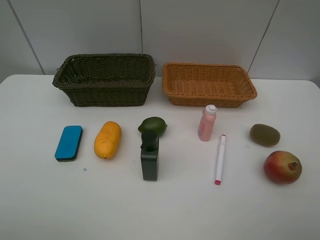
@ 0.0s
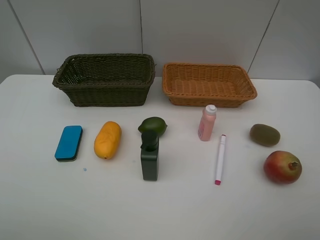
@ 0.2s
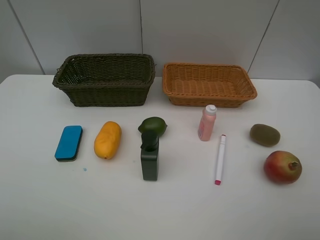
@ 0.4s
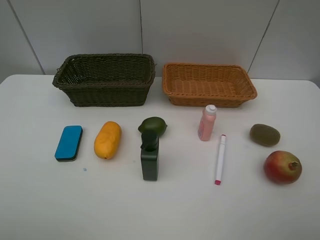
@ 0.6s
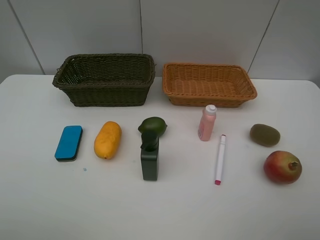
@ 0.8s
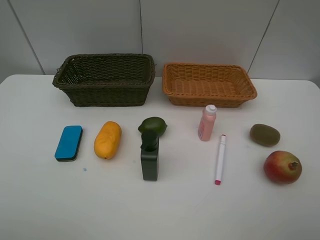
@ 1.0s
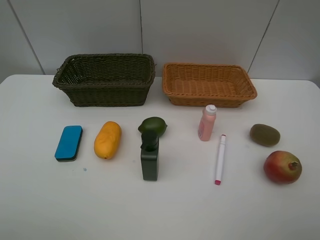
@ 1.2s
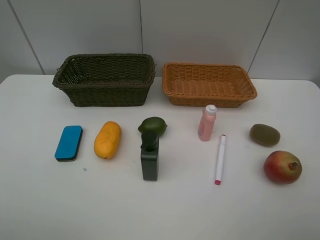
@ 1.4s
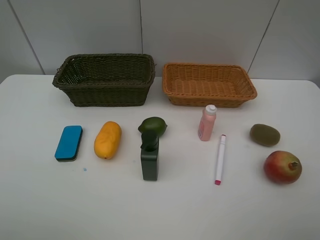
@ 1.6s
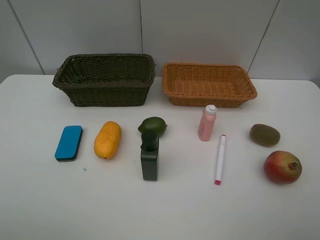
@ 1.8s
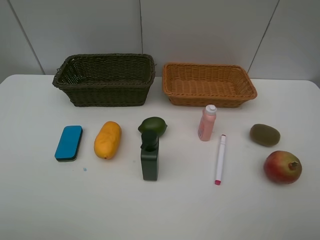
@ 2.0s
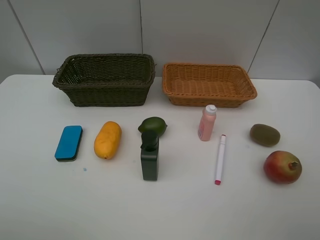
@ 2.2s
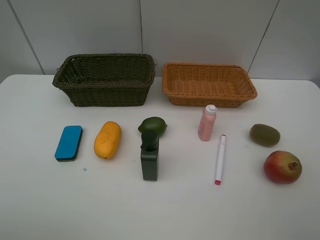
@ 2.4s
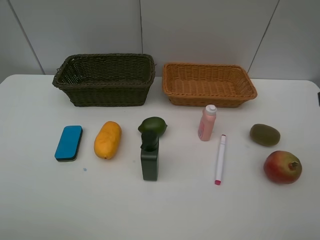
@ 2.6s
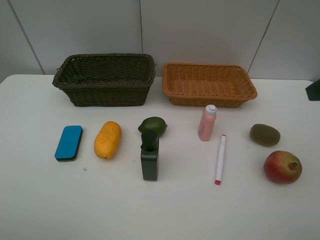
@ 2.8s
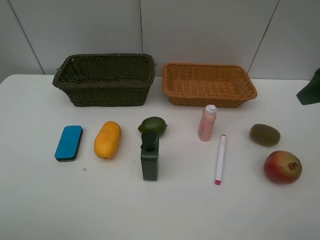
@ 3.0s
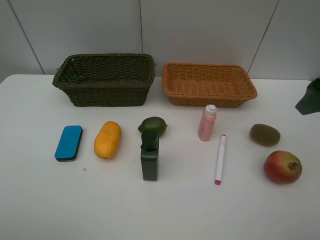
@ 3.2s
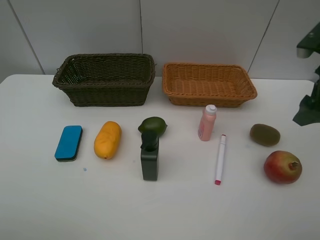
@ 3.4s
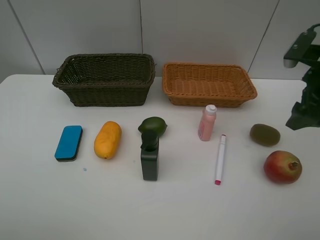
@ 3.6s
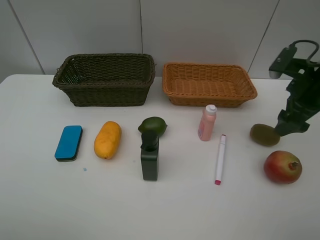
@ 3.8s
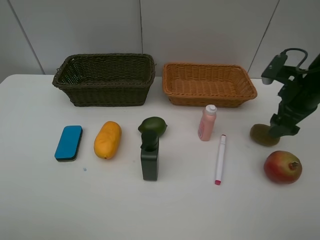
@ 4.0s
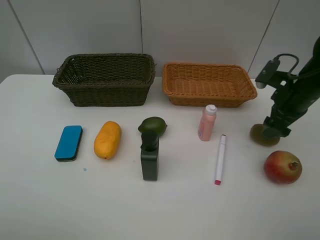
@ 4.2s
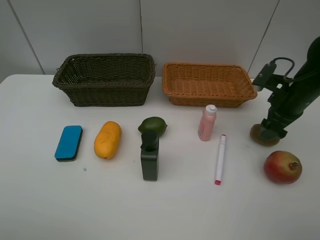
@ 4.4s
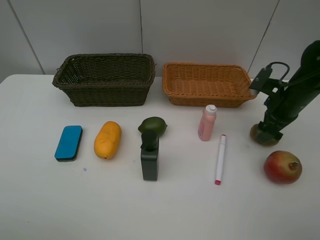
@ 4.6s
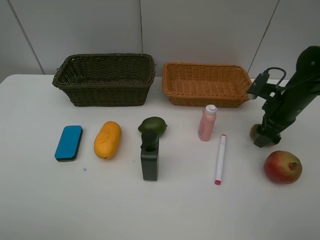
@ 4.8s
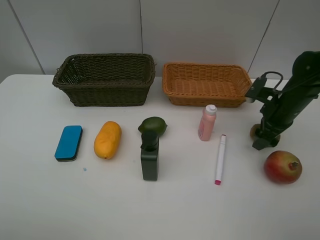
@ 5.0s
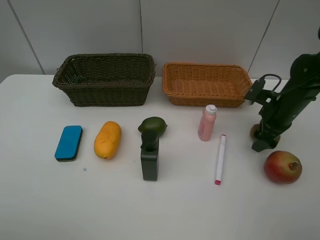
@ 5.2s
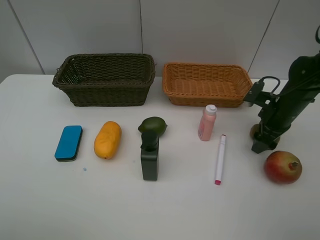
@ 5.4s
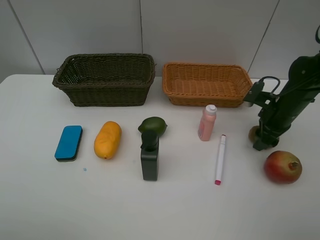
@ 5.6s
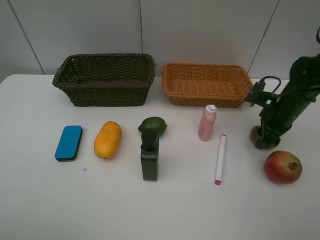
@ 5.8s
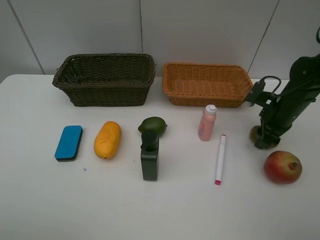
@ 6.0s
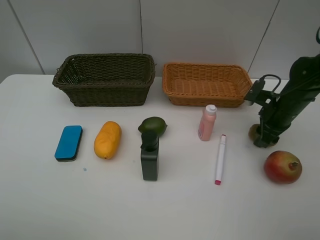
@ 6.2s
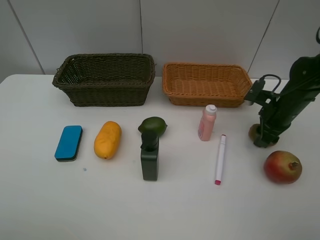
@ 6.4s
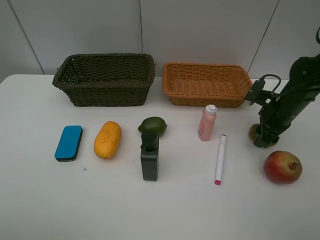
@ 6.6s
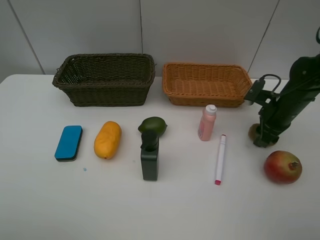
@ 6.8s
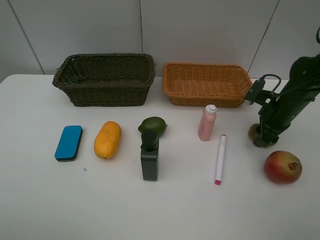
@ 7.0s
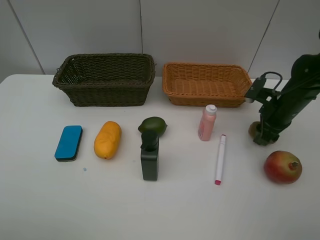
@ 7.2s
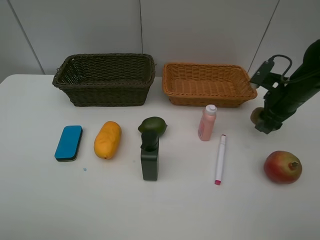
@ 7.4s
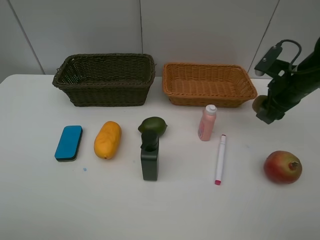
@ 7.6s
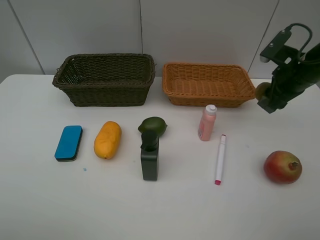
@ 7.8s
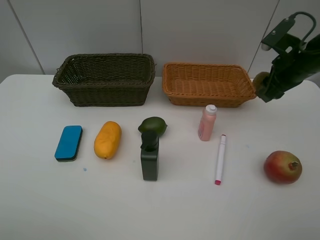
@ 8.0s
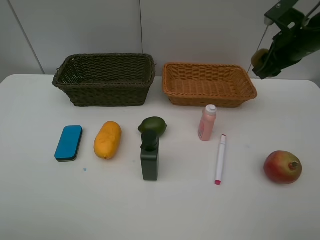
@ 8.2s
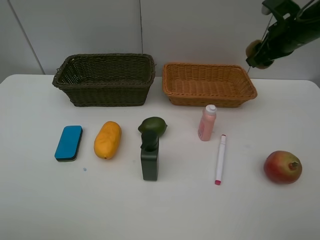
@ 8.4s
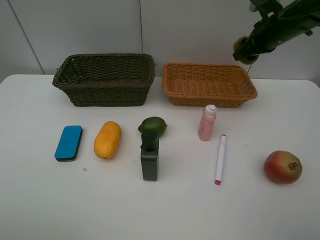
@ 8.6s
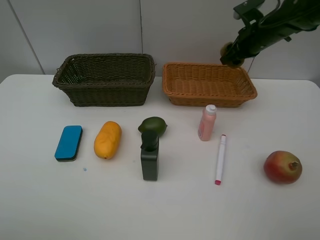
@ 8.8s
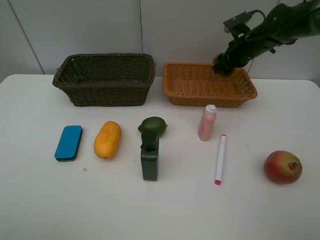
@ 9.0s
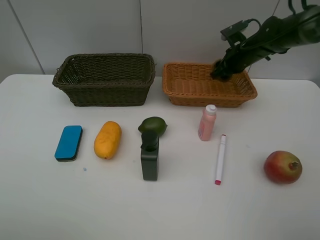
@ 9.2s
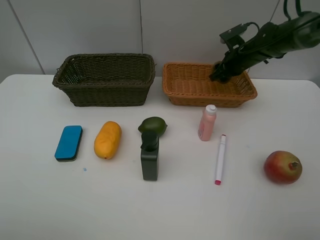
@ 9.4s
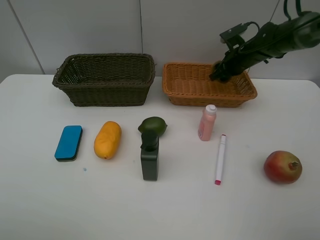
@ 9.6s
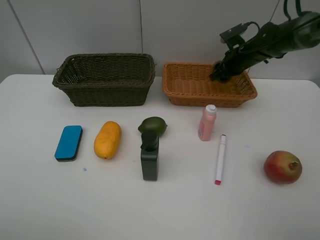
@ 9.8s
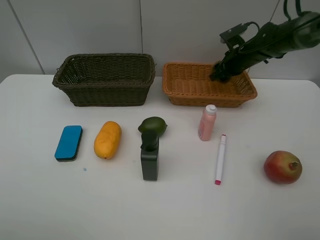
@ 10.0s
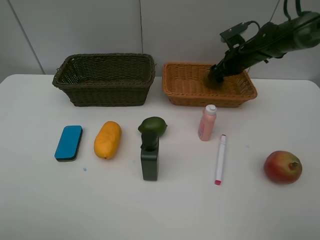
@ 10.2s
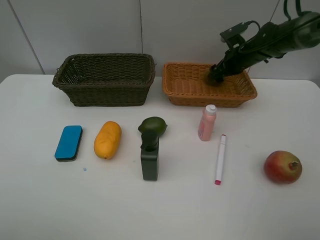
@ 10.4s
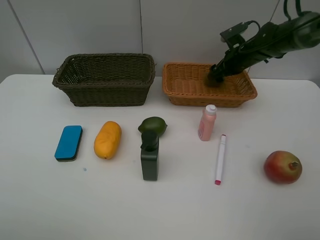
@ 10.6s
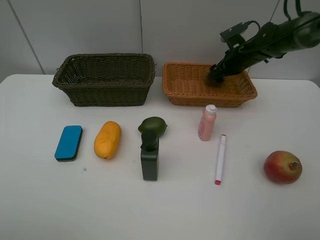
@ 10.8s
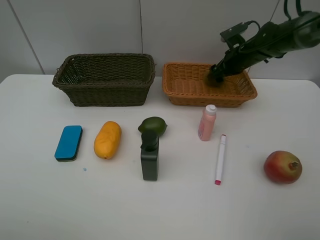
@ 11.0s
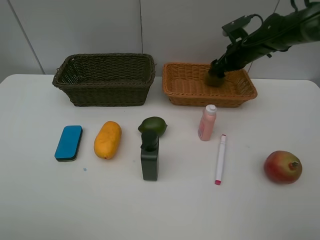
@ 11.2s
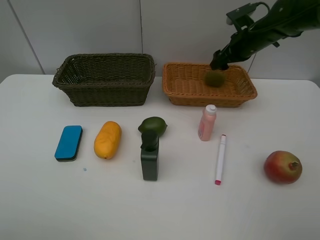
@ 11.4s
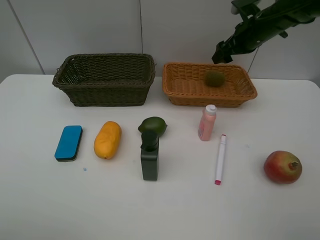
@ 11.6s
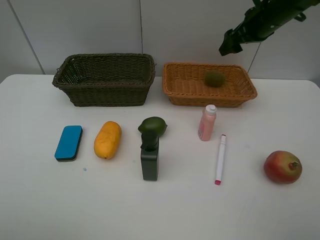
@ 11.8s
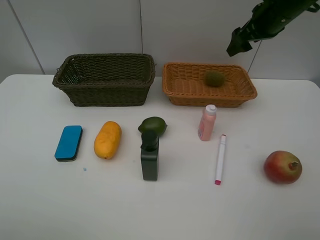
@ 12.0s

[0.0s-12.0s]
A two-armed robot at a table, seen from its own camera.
Task of the whole recording: Place multiple objects separately in different baskets.
Step, 0.0s to 7.2s: Pick up kiwi with right gripper.
Step, 7.4s to 11.2s: Place the kiwi in the light basket with right gripper.
0.0s to 1.6s: Neither gripper changes place.
1.6s to 3.0s: The right gripper is displaced forward by roughly 20 cm.
3.0s to 4.4s: The right gripper travels downward and forward by some 20 cm.
4.4s to 6.0s: The right gripper closes its fingers.
6.0s to 7.6s: The right gripper goes roughly 5 cm upward.
7.6s to 9.0s: The right gripper travels forward by about 15 cm.
9.0s to 10.4s: The right gripper opens.
10.4s to 12.0s: The right gripper goes some 15 cm upward and backward.

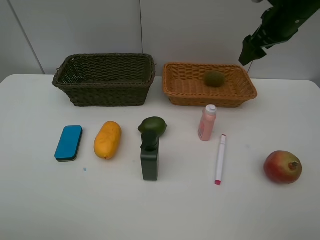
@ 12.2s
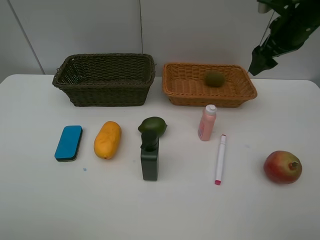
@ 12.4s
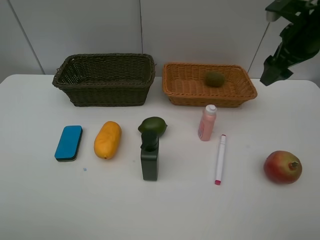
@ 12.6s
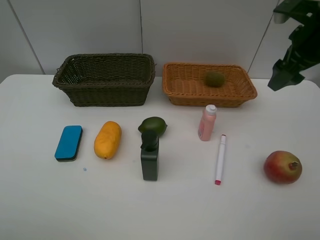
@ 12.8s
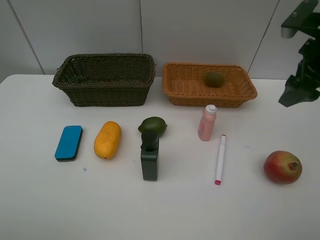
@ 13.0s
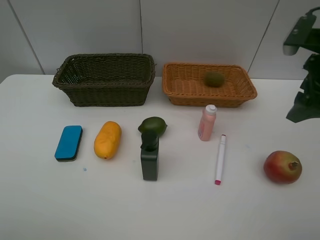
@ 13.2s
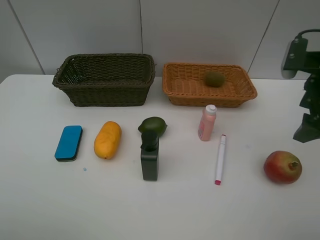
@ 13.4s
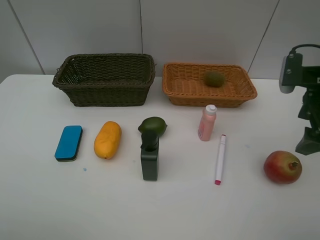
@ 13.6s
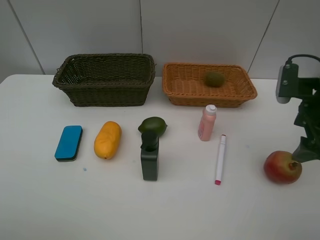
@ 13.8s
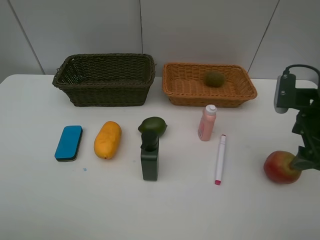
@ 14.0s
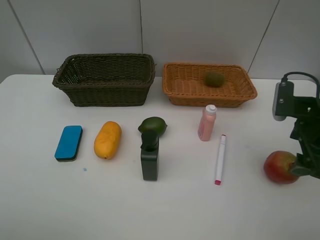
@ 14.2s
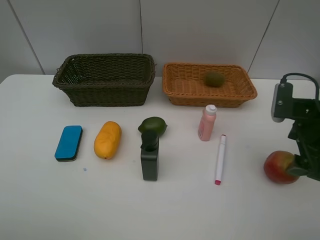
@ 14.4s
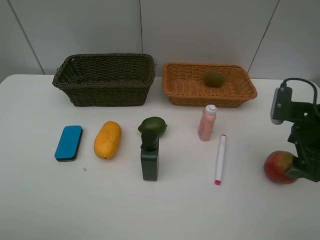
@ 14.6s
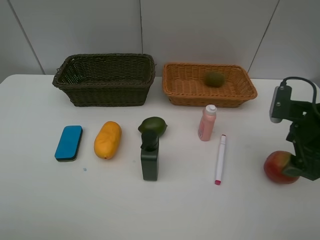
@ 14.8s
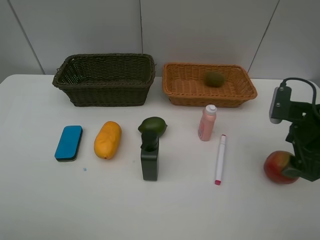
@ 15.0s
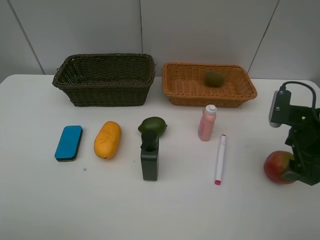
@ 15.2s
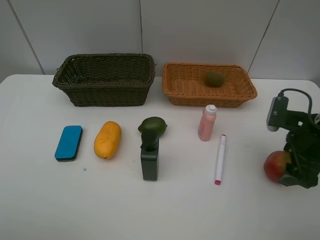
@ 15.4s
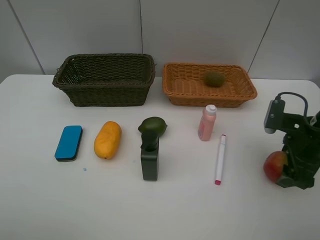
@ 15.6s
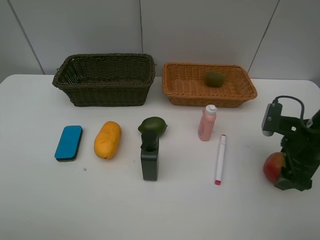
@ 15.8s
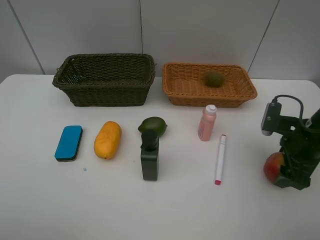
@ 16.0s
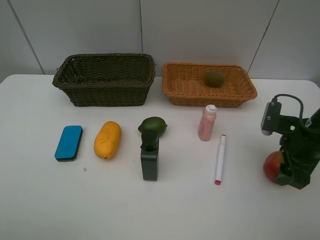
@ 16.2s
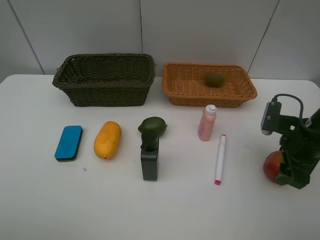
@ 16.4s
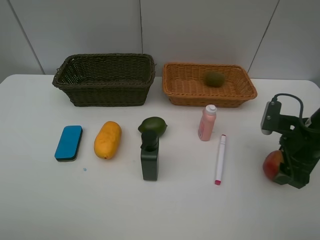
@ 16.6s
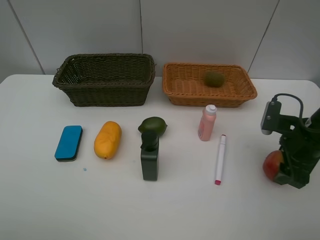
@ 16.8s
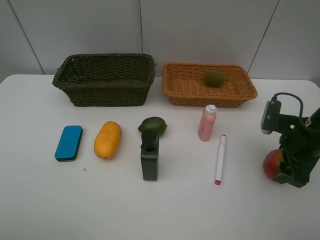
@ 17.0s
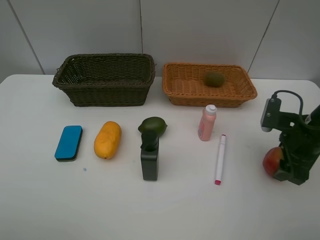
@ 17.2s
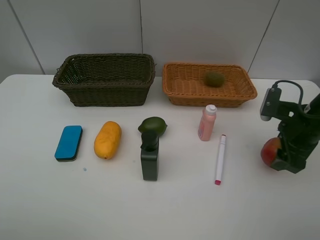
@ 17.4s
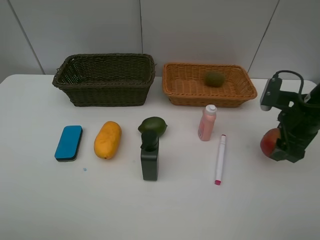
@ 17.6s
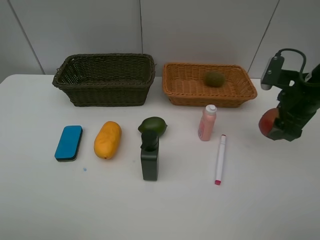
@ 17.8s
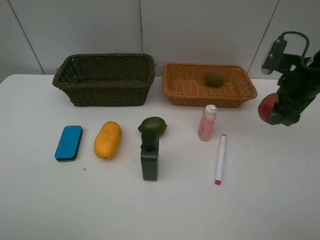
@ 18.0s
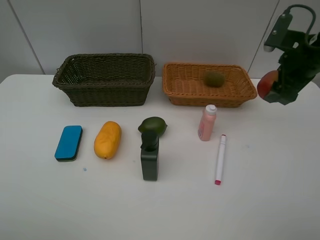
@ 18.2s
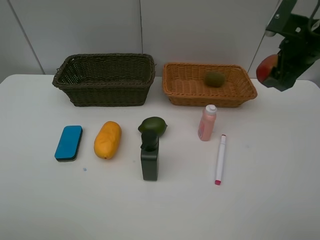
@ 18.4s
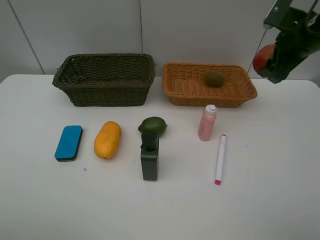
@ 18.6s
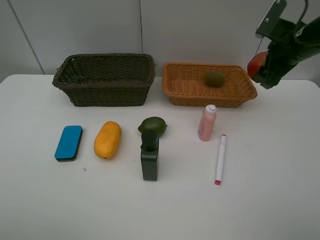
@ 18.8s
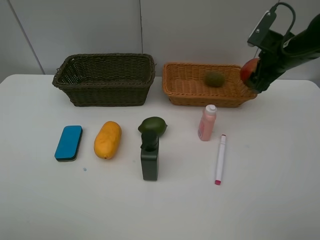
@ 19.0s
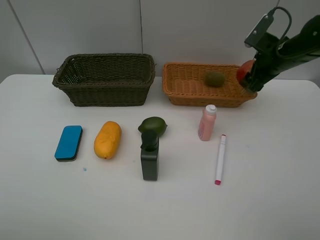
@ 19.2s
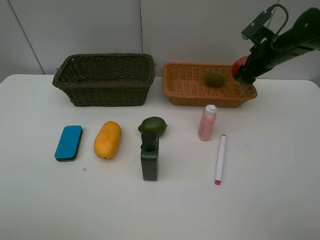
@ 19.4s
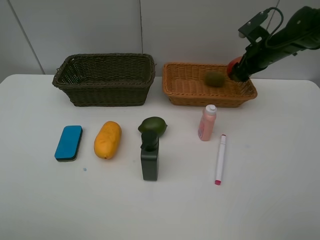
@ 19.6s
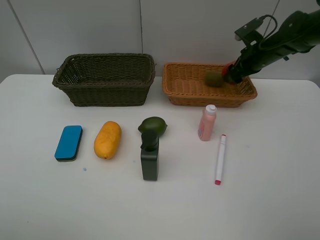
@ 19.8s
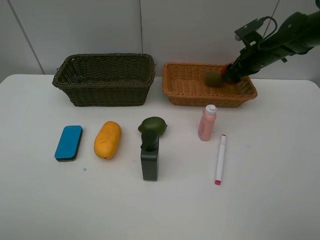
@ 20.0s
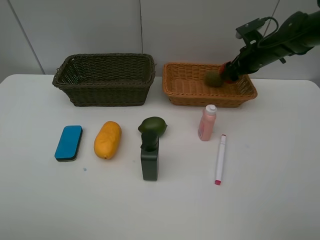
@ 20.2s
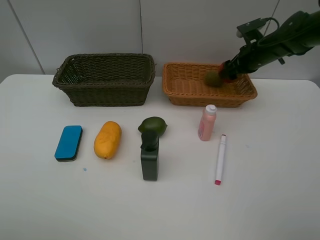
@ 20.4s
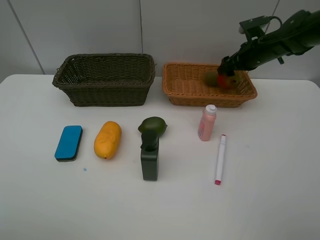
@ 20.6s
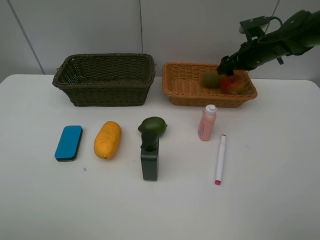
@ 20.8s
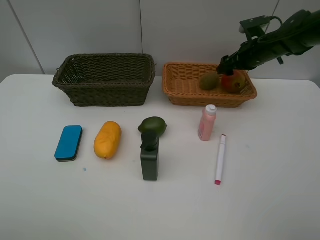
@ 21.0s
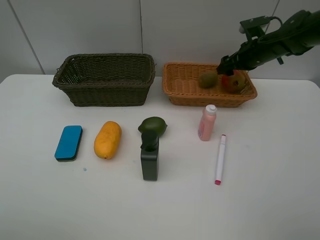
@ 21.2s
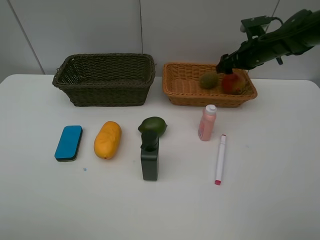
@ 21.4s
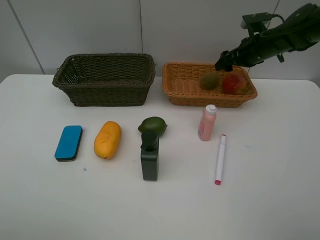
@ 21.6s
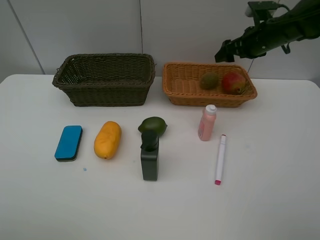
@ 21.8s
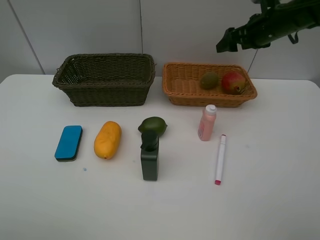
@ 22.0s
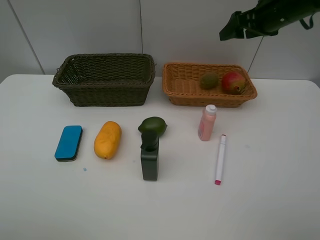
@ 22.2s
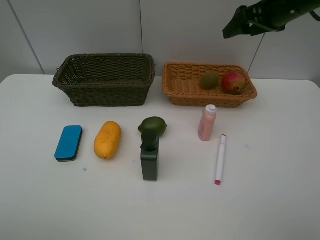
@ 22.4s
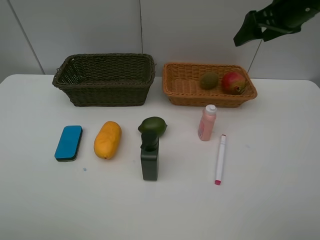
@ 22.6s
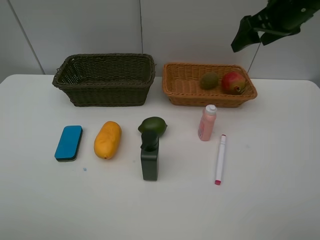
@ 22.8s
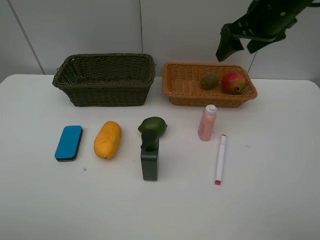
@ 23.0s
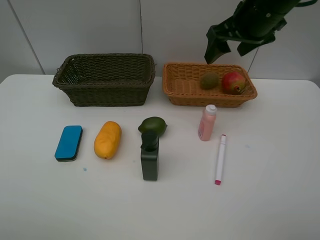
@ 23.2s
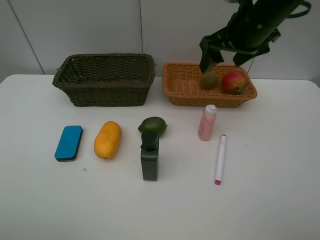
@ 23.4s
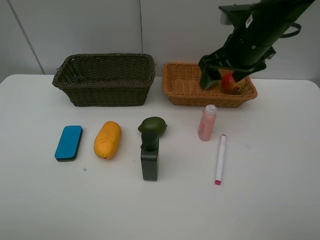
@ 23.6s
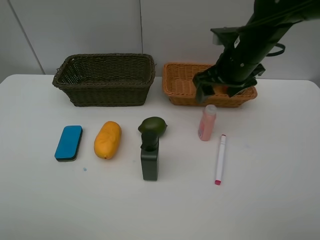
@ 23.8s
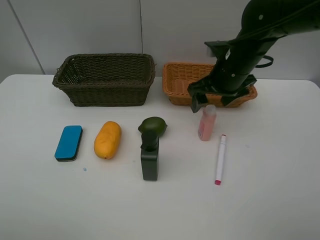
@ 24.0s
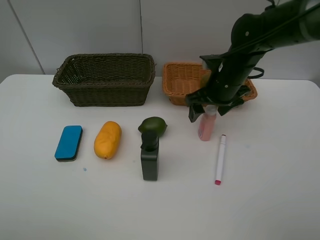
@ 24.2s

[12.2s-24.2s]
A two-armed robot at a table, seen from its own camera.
Task of the whole recording: Place multiple objects separately in different baskets.
Step, 12.2s to 17.6s: Pick up the pomegranate with right gripper.
Step, 17.8s to 21.0s: Place the pomegranate in the light basket with right gripper.
12.2s to 13.8s: The right gripper moves backward and downward, about 20 cm.
13.8s to 15.2s: The right gripper moves roughly 5 cm.
15.2s to 16.6s: The grippers move only a little.
16.6s to 18.2s: The right gripper goes about 15 cm upward and forward.
18.2s to 19.8s: The right gripper moves forward and downward, about 15 cm.
19.8s to 21.2s: There are only small adjustments of the grippers.
21.2s to 22.6s: The right gripper travels upward and backward by about 15 cm.
22.6s to 24.2s: The right gripper travels downward and to the left by some 20 cm.
